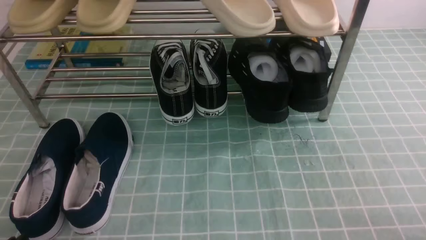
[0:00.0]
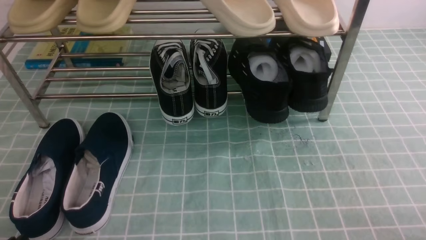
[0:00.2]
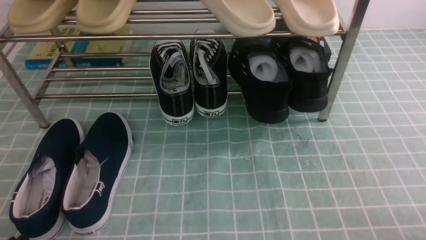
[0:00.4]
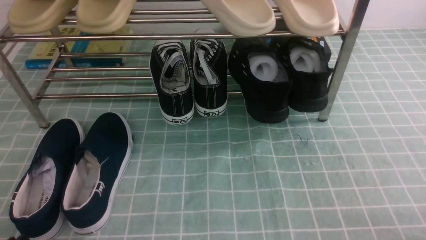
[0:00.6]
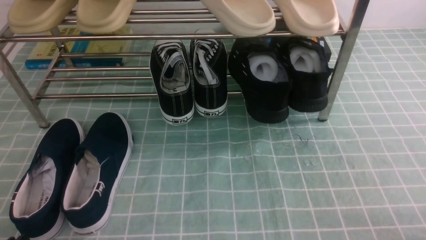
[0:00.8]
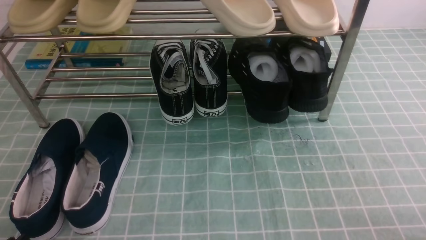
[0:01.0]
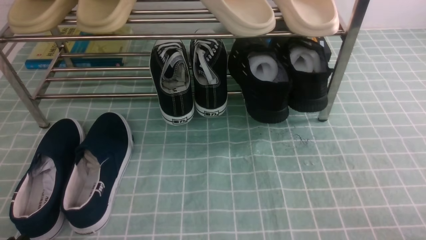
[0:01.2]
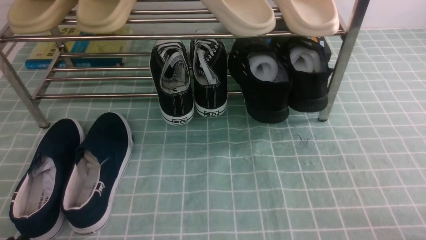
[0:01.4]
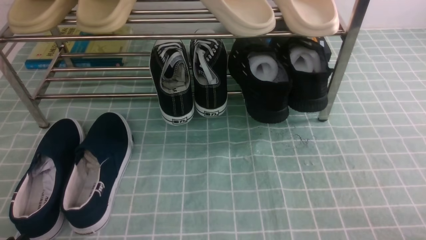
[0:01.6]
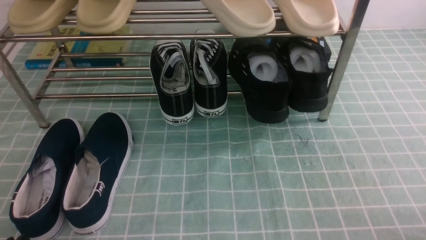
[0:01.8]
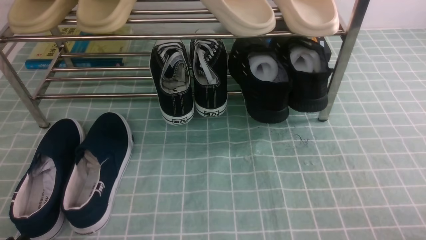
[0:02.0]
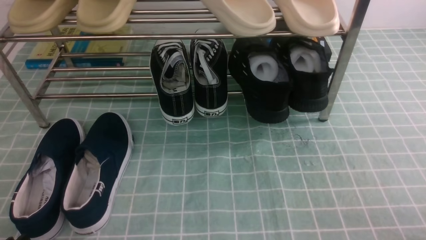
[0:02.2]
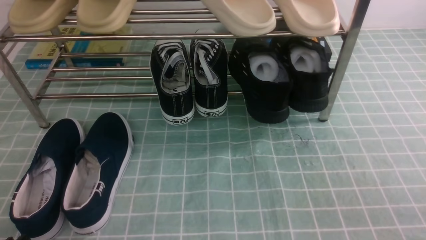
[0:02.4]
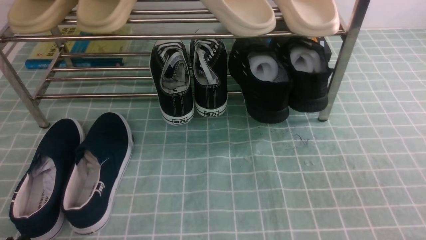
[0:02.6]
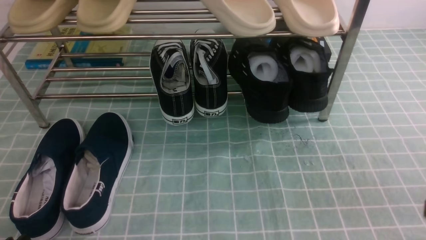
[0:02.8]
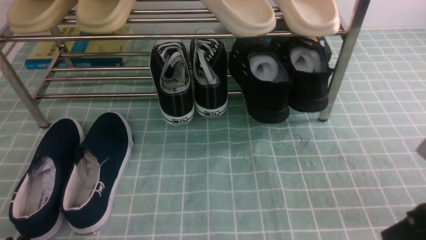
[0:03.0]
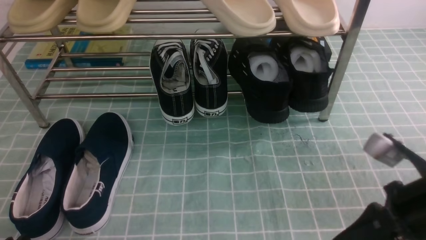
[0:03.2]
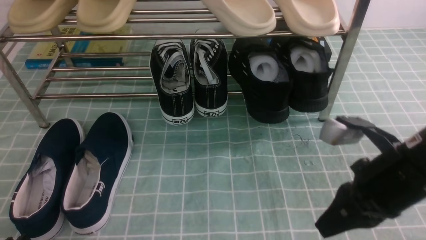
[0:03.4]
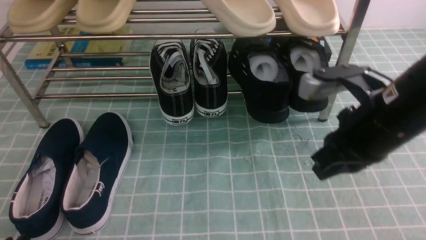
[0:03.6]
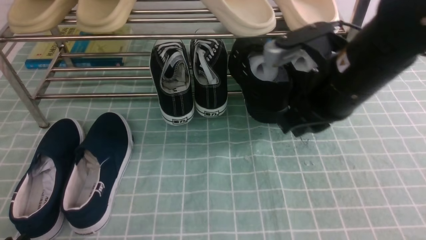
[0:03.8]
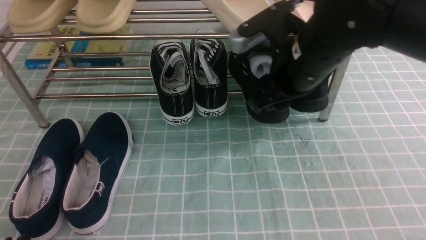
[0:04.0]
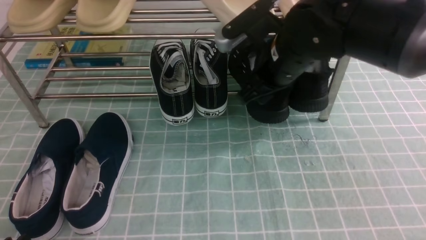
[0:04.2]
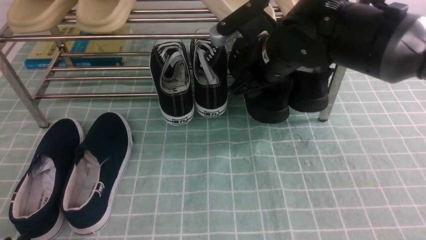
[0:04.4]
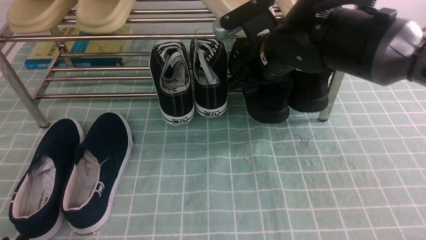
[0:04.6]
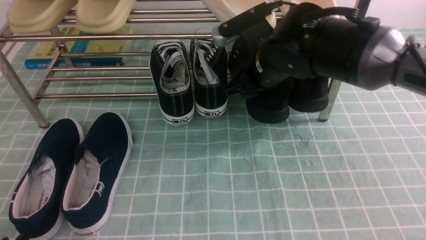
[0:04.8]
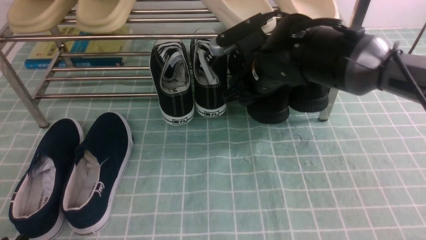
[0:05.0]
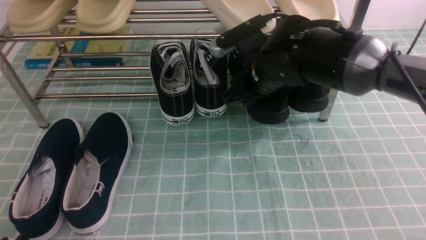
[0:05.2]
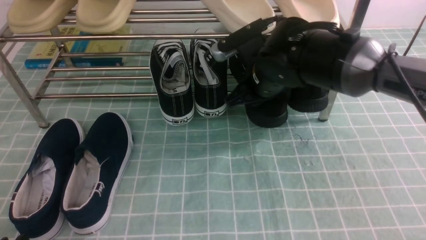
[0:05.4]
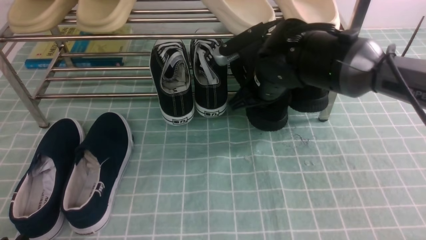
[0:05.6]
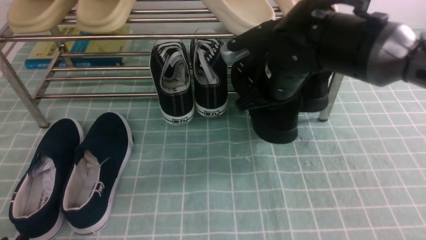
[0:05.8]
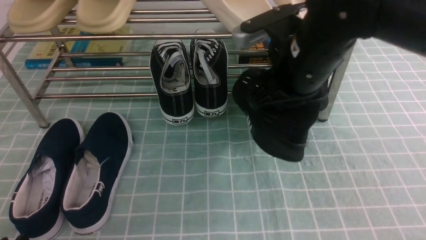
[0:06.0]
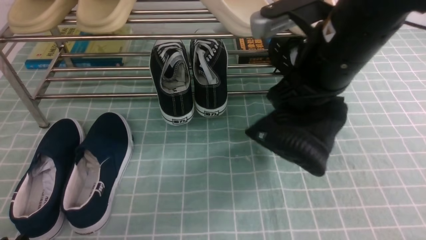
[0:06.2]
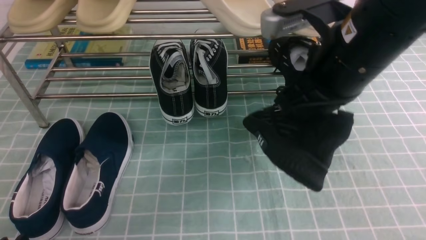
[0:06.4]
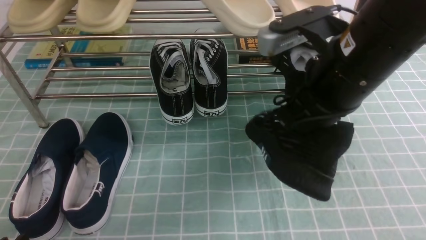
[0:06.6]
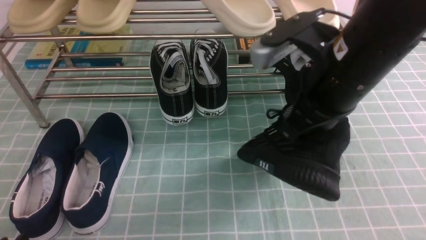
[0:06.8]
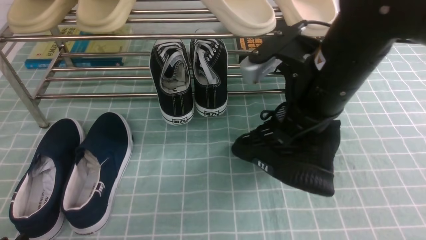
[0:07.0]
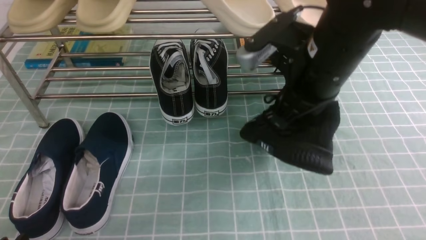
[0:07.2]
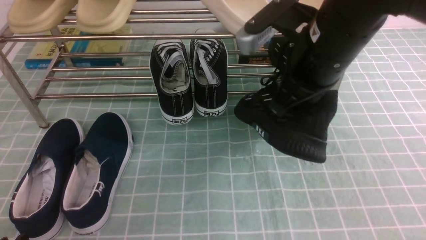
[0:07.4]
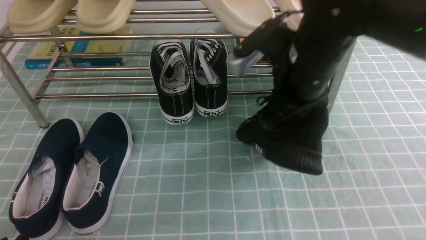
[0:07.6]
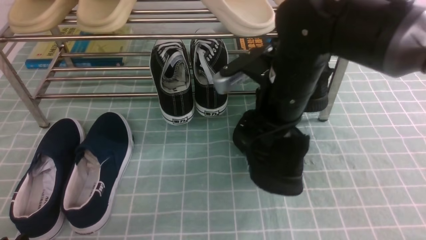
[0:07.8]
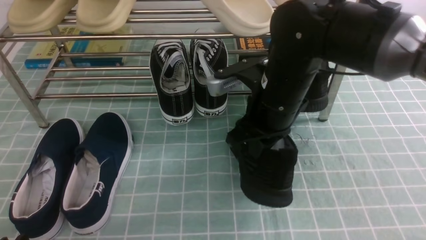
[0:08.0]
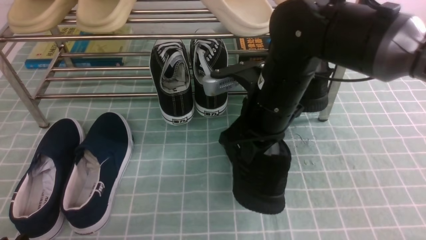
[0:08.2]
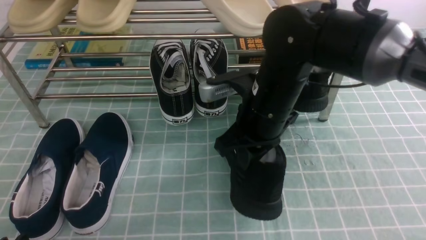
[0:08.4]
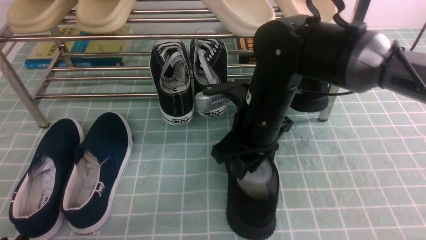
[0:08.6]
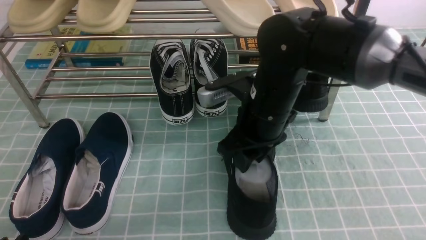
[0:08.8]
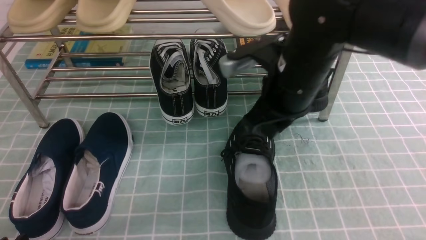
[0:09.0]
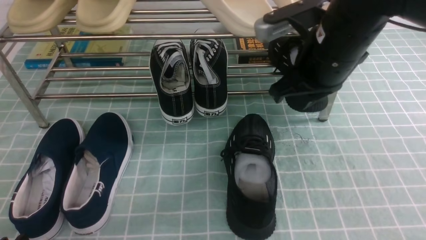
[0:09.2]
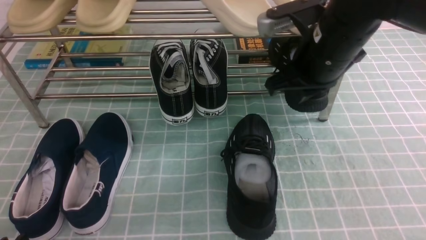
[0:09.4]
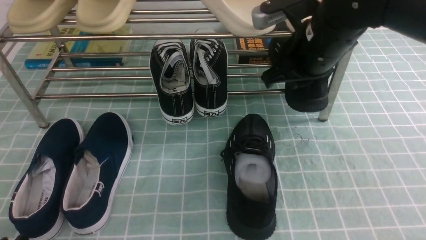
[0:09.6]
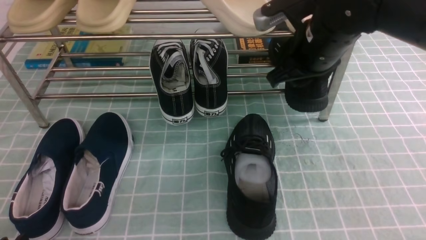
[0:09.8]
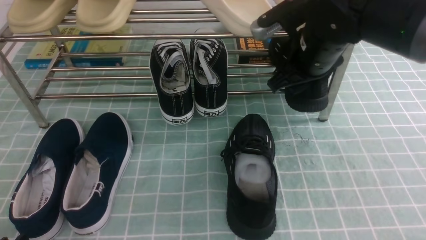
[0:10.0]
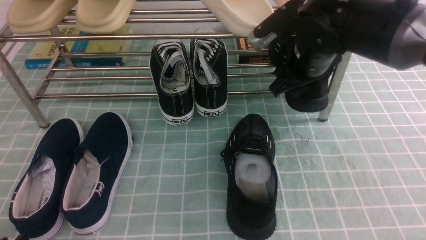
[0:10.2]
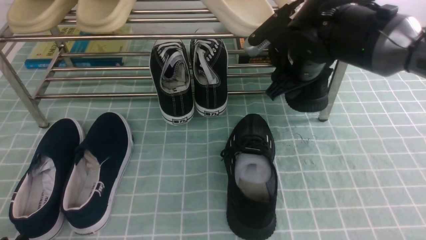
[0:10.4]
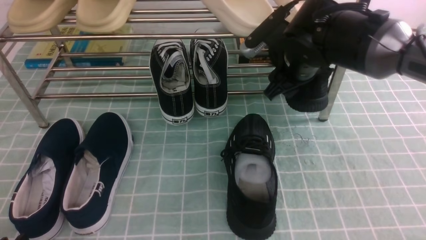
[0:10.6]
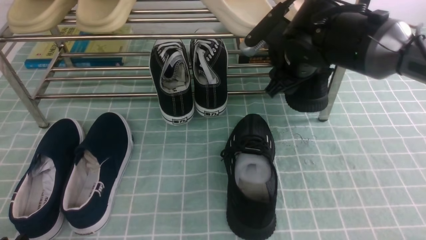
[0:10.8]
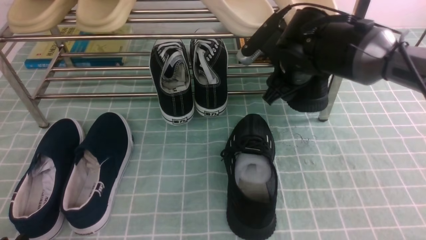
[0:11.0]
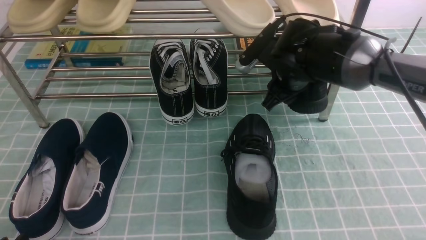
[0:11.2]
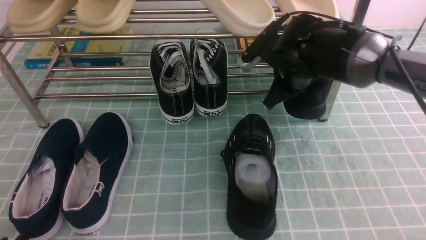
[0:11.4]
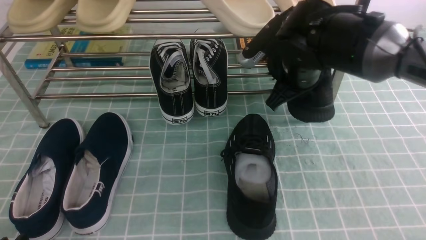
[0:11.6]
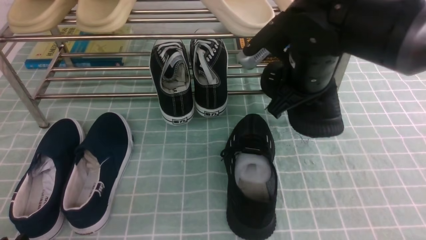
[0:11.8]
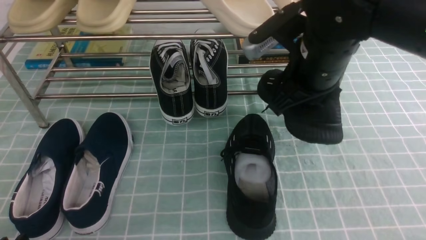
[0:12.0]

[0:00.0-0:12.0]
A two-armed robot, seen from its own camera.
Step, 0:00.0 to 0:05.6: use the right arm to clamp a shoe on the right side of the shoe rack.
Step, 0:05.8 to 0:08.8: use the right arm to take out the clamped shoe from the shoe rack and put it down.
Step, 0:09.0 to 0:11.2: use the right arm to clamp a shoe on the right side of the shoe rack.
0:01.6 to 0:03.0: The right gripper moves forward, upward and to the left, some 15 cm, and closes up.
0:03.0 to 0:04.4: The right gripper shifts some 25 cm forward and to the left, and opens up.
0:04.4 to 0:06.0: The right gripper is displaced backward by about 5 cm, and closes its fingers.
0:09.0 to 0:10.4: The right gripper shifts roughly 10 cm forward, and opens.
0:10.4 to 0:12.0: The right gripper heads backward and upward, covering some 10 cm, and closes up.

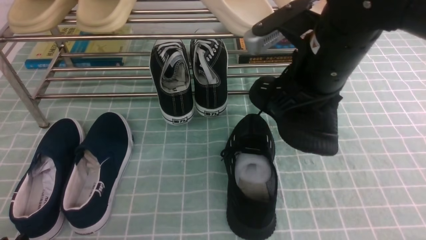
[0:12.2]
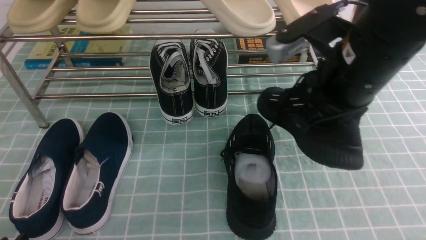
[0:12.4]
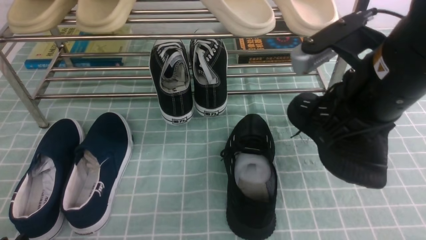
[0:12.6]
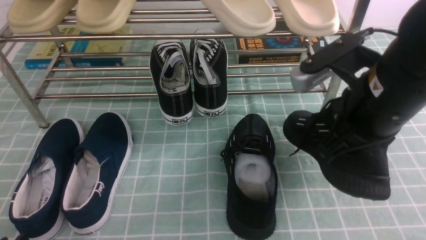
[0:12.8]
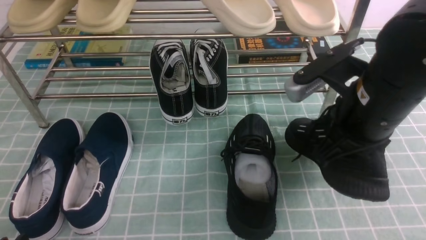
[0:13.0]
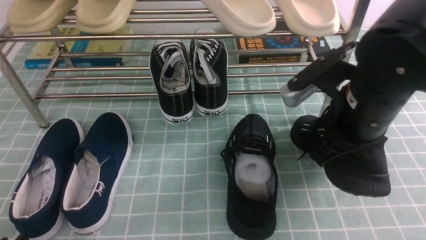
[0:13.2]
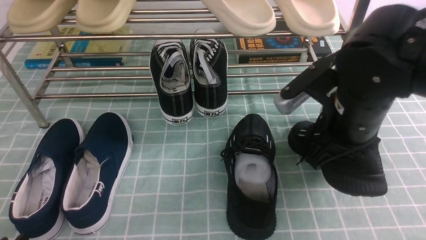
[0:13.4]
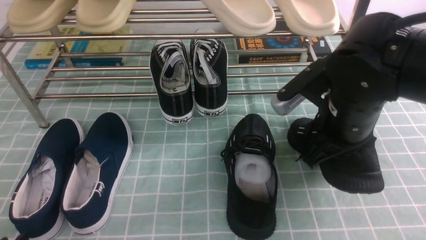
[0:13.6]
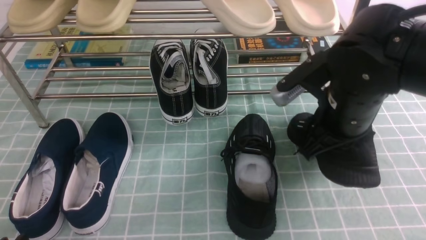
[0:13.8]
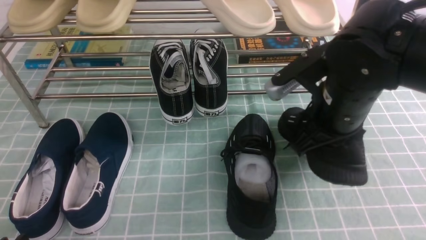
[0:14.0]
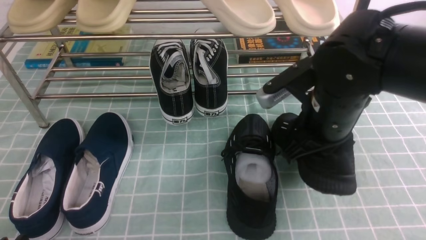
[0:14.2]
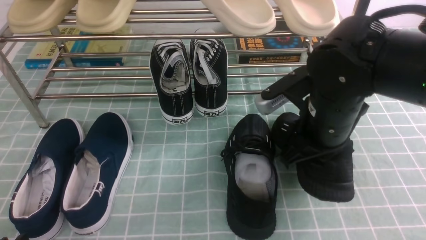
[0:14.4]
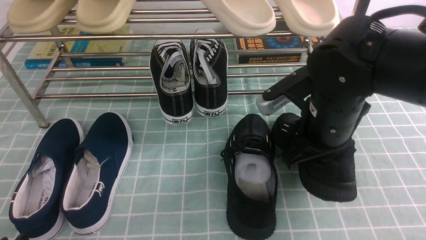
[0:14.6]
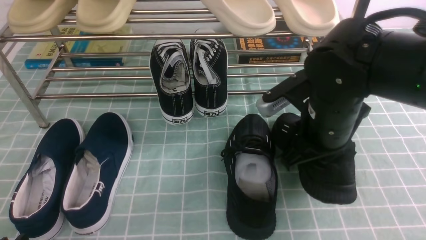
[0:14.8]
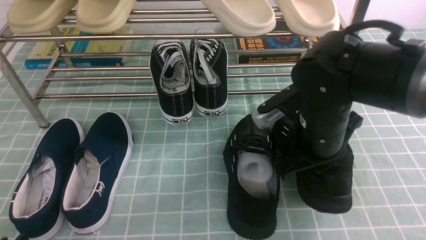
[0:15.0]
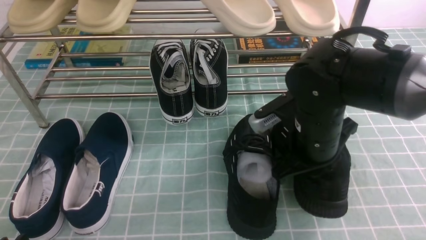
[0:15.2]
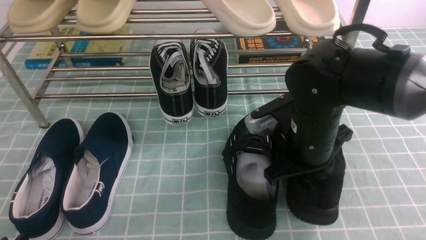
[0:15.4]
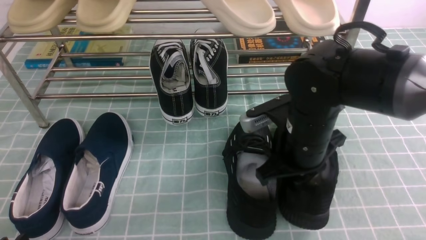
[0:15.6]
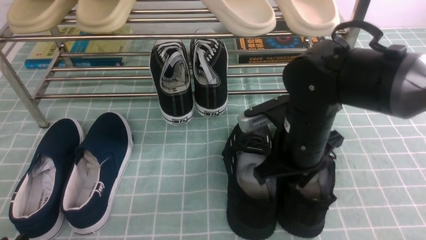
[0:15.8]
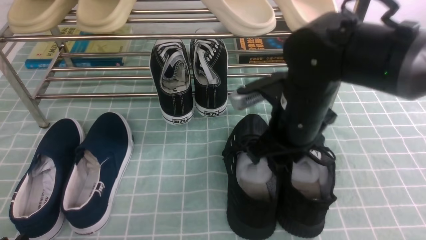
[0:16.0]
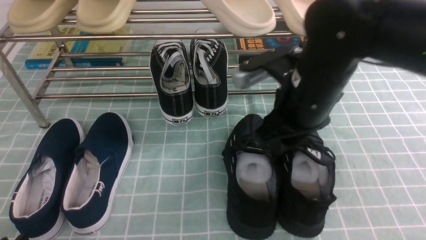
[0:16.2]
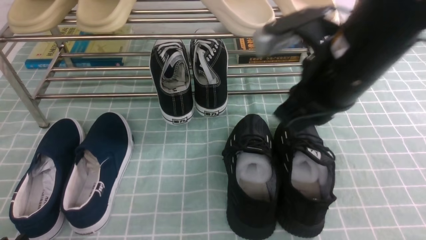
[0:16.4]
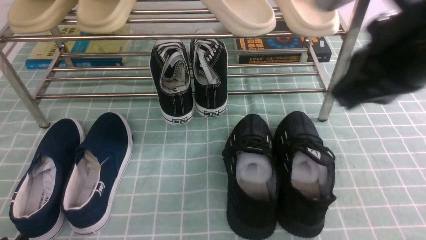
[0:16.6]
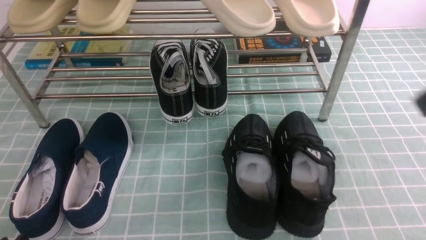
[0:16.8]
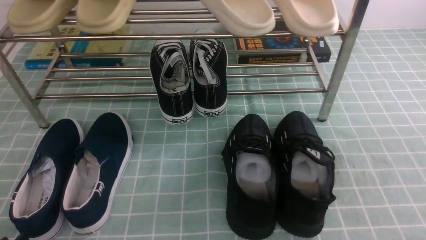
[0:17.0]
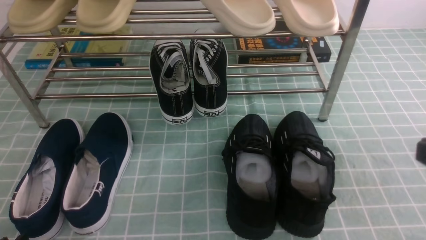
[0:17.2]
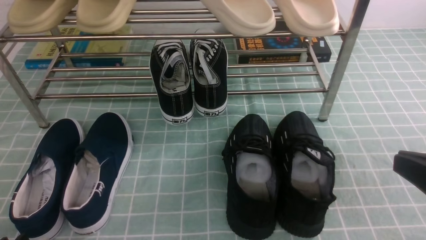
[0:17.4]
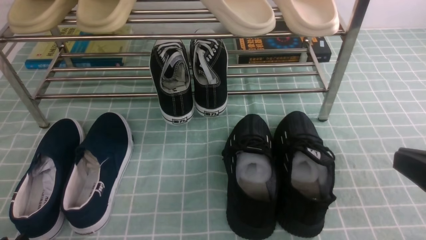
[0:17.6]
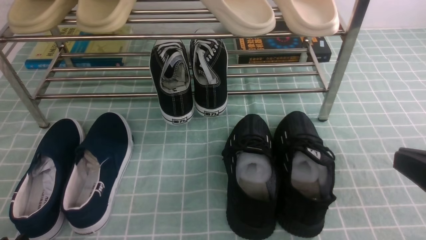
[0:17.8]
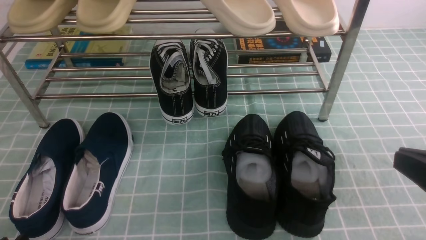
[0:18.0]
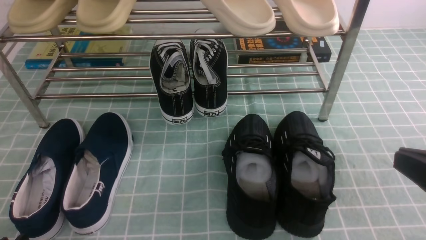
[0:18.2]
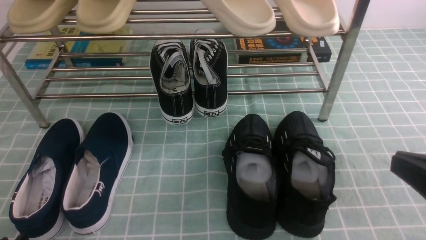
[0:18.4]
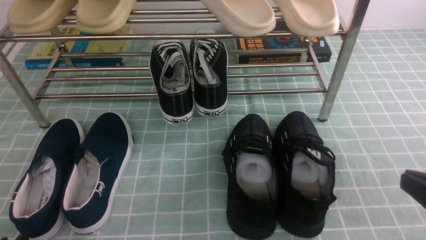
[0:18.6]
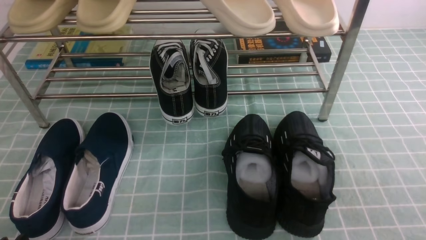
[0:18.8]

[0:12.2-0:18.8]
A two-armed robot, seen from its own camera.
Step, 0:12.2 to 0:16.2: use the right arm to take out the clamped shoe from the shoe rack and put it down.
0:12.2 to 0:13.8: The right gripper travels downward by roughly 5 cm.
0:13.8 to 0:15.4: The right gripper is displaced downward by about 5 cm.
0:15.4 to 0:17.2: The right gripper is displaced backward, to the right and upward by approximately 25 cm, and opens, then closes once more.
